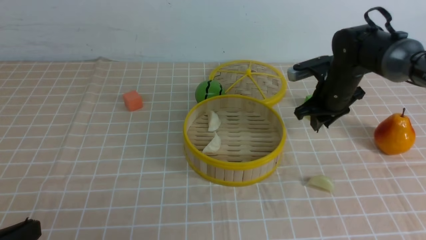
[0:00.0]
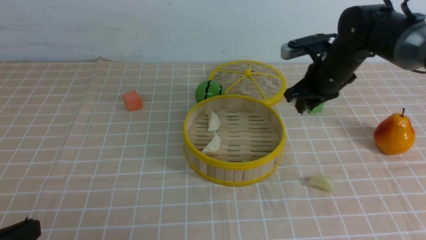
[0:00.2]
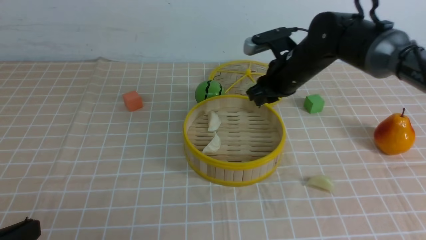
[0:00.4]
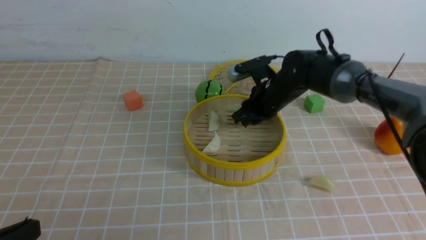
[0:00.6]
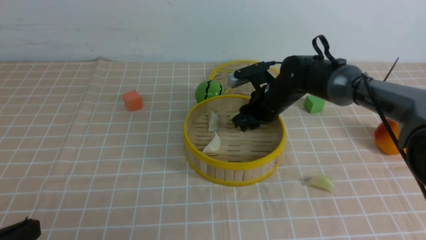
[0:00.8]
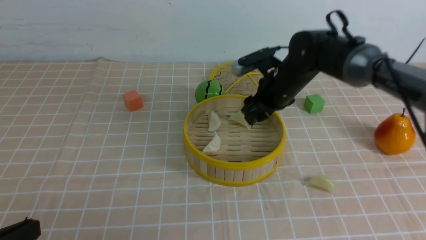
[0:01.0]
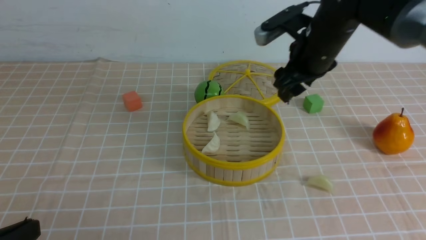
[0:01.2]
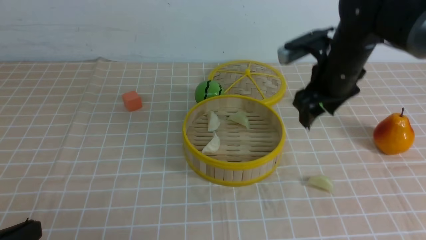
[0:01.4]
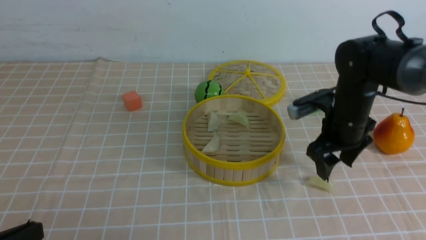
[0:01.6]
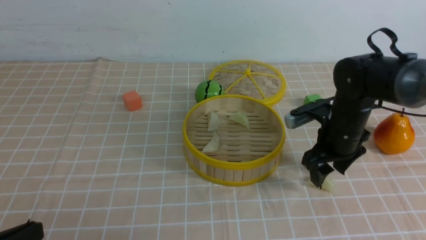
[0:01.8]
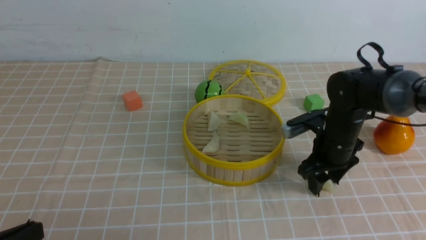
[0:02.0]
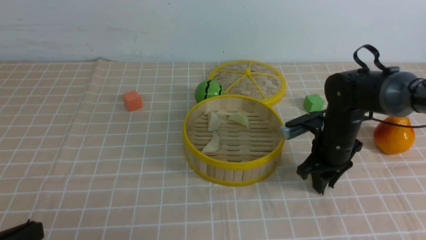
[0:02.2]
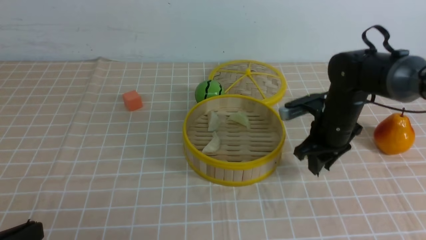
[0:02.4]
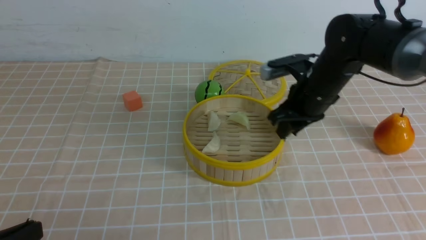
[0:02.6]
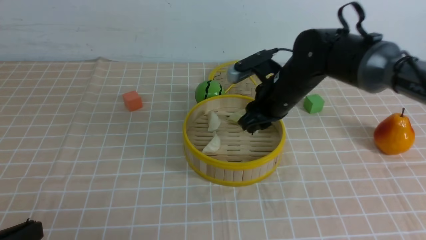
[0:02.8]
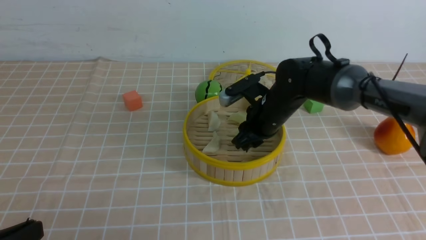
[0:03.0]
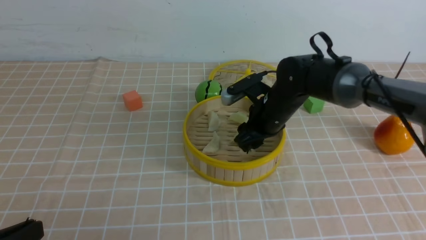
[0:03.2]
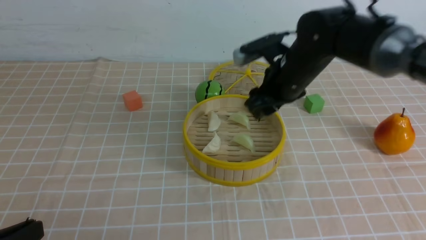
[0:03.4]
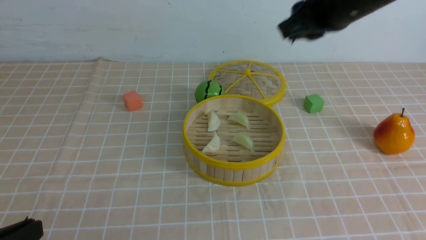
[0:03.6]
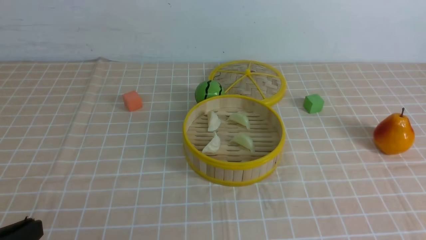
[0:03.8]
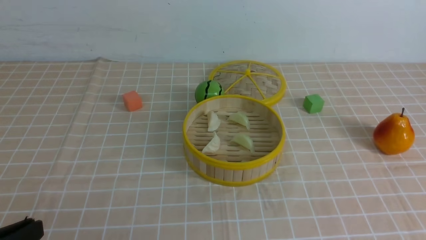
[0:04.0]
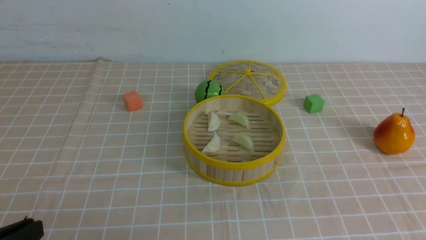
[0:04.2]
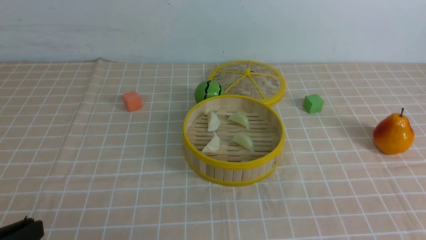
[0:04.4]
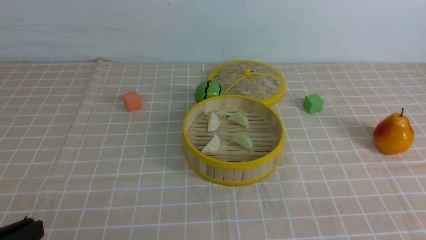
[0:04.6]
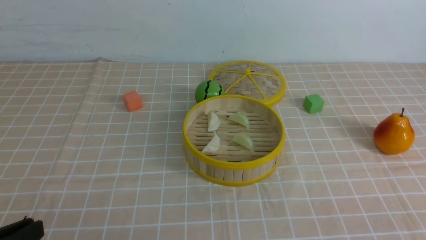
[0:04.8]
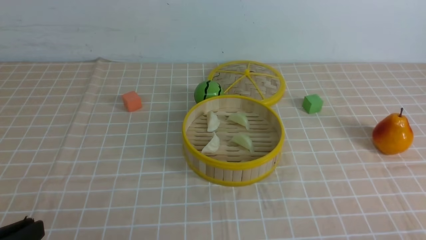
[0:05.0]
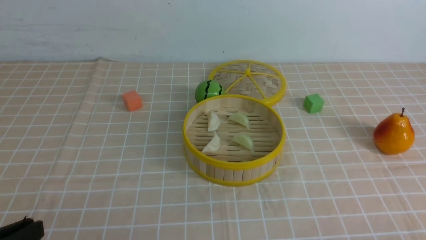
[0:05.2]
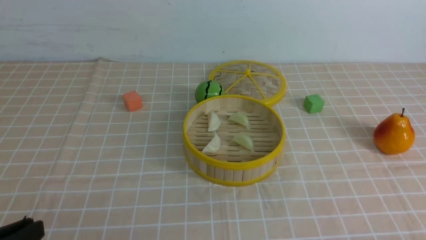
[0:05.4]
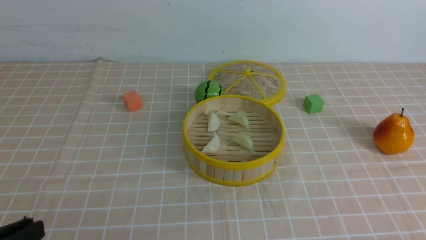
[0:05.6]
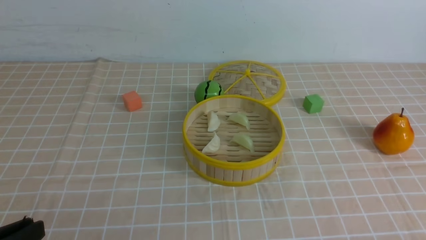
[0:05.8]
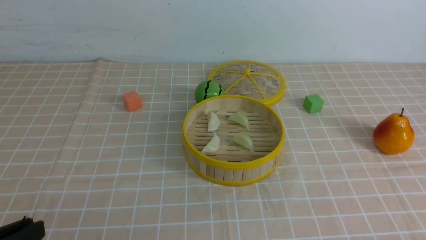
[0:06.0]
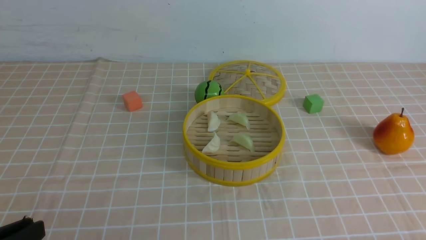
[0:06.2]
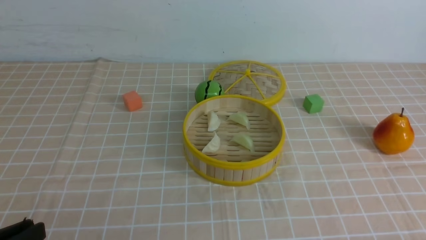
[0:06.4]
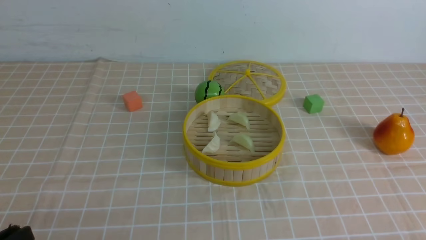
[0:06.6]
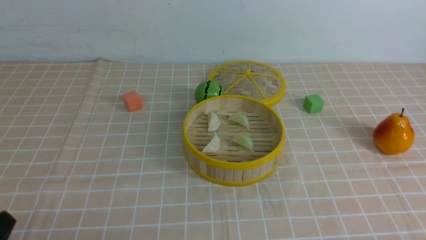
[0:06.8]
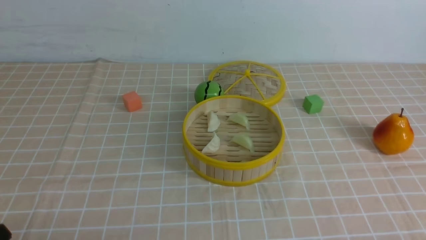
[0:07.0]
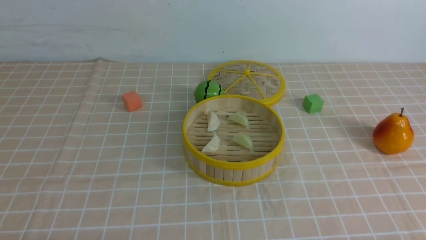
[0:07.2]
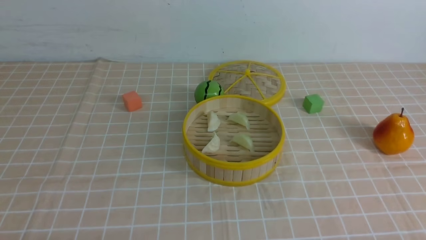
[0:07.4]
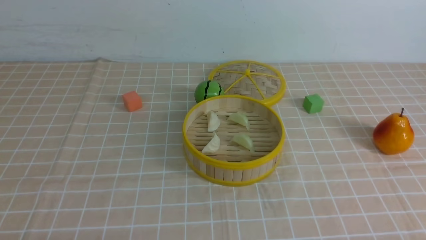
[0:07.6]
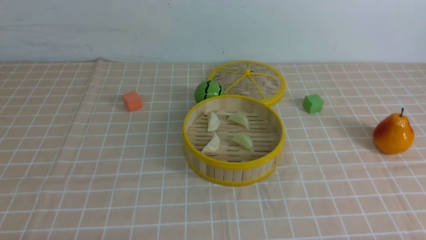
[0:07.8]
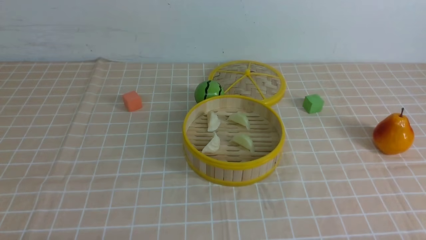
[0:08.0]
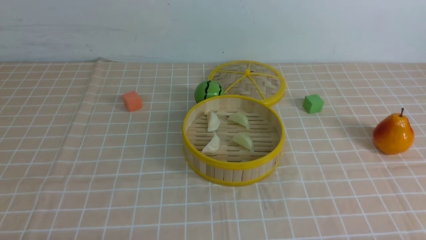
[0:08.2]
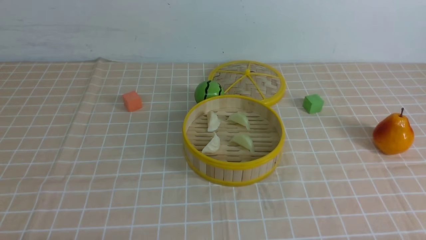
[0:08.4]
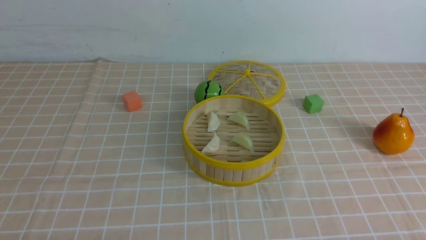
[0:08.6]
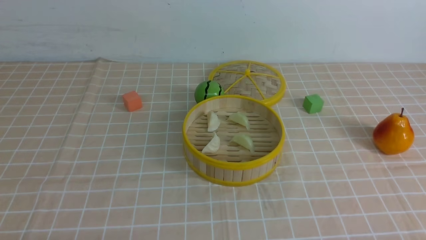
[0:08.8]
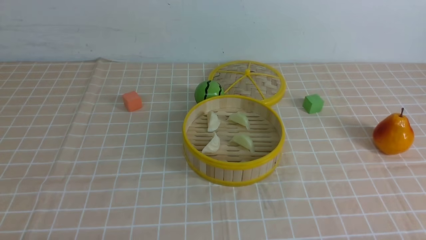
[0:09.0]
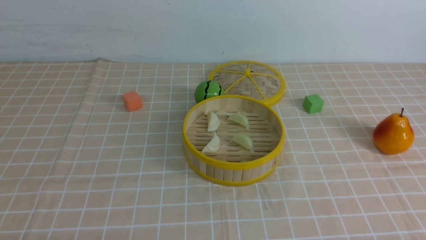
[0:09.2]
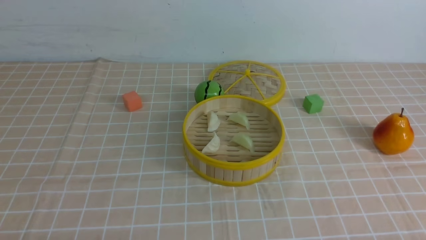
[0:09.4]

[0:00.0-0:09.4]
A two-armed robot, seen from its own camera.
Task of the whole recording: put the dumplings into the steamer on the table with the brown tablecloth.
Step, 0:00.0 to 0:00.8: use the right arm to put the dumpling into the steamer.
Step, 0:01.2 to 0:02.2: use the right arm to grab a dumpling.
Step, 0:02.4 to 0:03.4: use the right arm to put the dumpling into the steamer.
0:00.0 to 0:01.6: The right gripper heads backward, covering some 5 cm, travels to the left and back again, about 10 cm each way, and opens.
0:01.6 to 0:03.2: The right gripper heads to the left, covering about 10 cm.
0:03.2 to 0:04.8: The right gripper goes about 40 cm backward and to the right, and closes up.
0:06.2 to 0:07.8: The left gripper moves downward, about 10 cm.
0:07.8 to 0:09.4: The two grippers keep their place.
